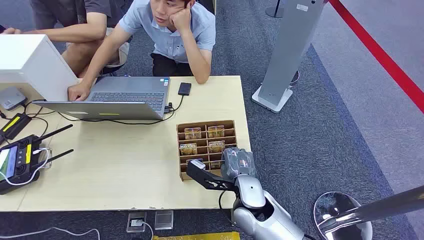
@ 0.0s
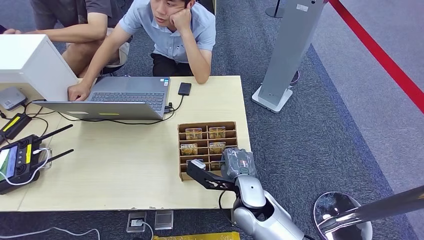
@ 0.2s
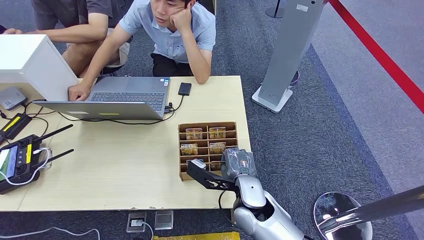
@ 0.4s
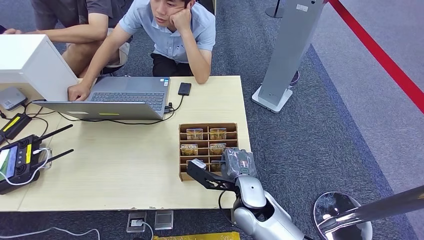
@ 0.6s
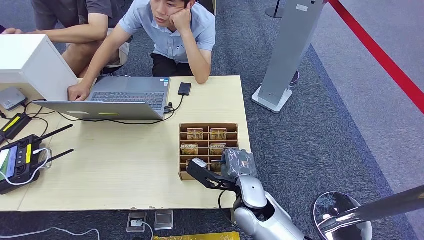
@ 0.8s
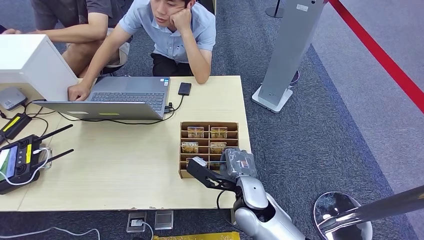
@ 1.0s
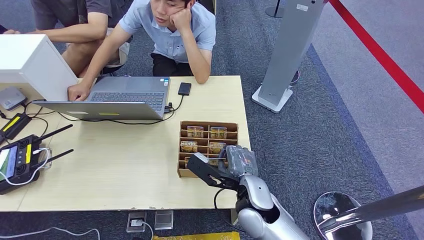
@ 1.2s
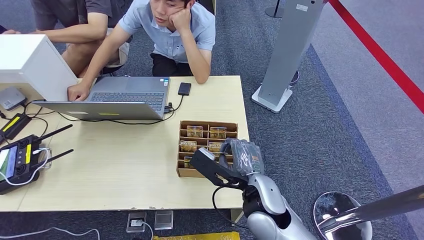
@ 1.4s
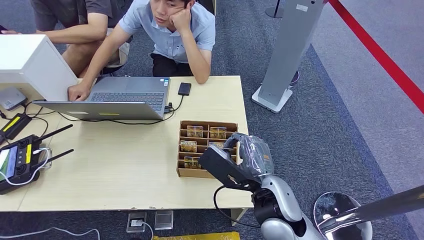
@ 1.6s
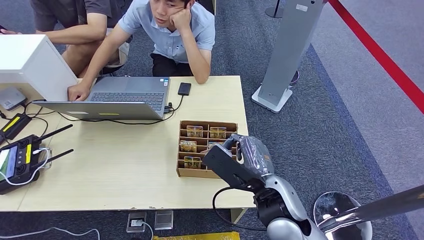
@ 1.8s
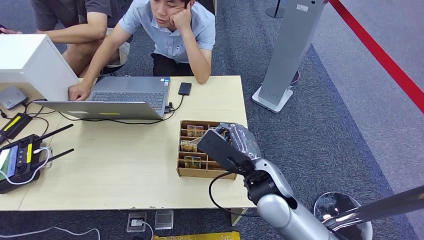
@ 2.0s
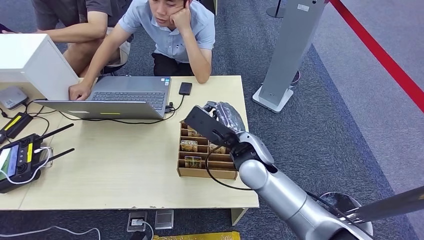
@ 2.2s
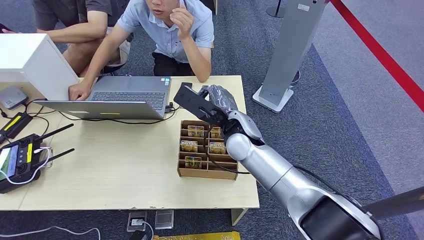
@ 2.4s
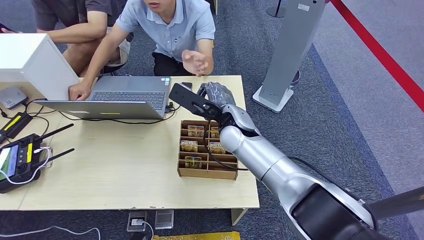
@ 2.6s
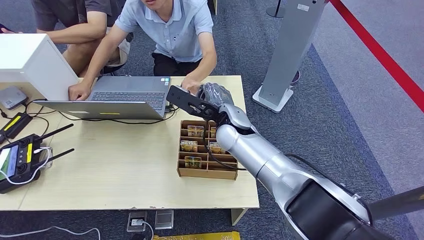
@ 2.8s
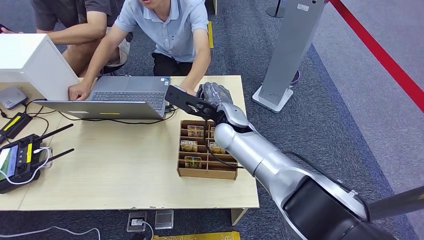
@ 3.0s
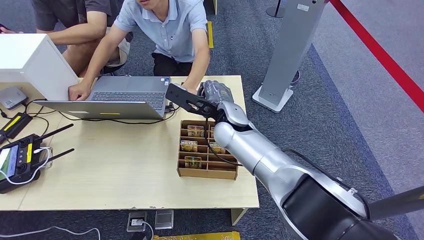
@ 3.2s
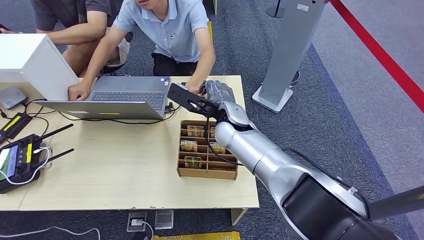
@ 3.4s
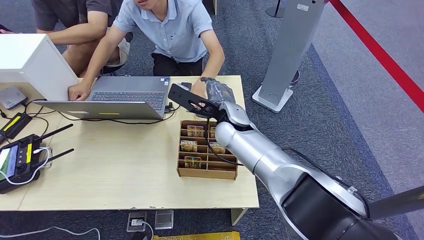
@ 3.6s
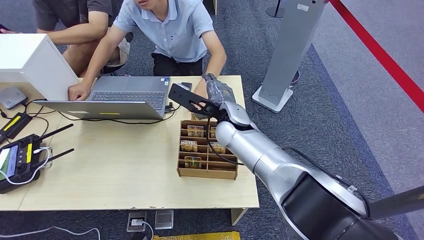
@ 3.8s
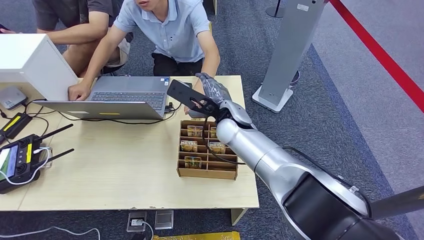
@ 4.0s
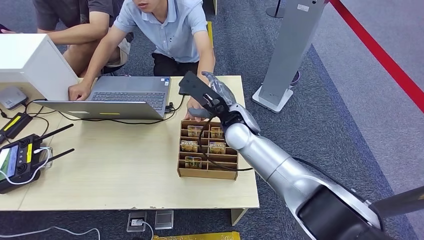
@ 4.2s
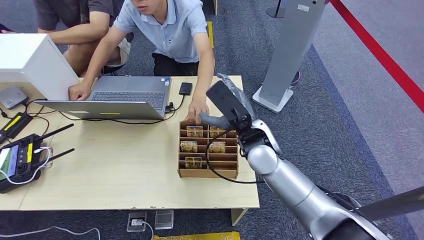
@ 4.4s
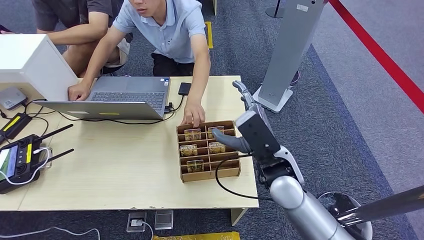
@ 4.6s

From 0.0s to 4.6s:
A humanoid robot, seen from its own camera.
Step, from 0.0s to 1.8s: Pick up the key card from the card box.
Step, from 2.2s to 4.6s: Hand the key card to the target.
From 1.6s to 3.0s: The right hand travels forward and to the left by some 20 cm.
From 3.0s to 4.6s: The right hand travels backward and to the right by approximately 15 cm.
